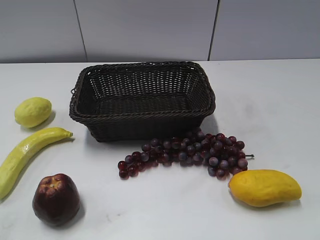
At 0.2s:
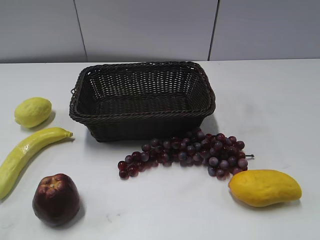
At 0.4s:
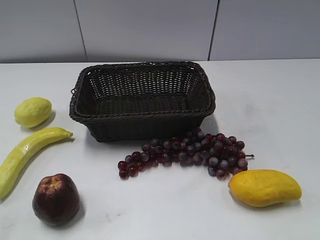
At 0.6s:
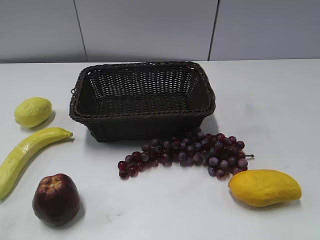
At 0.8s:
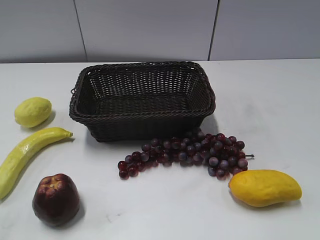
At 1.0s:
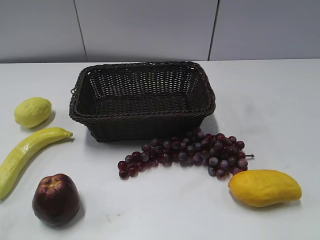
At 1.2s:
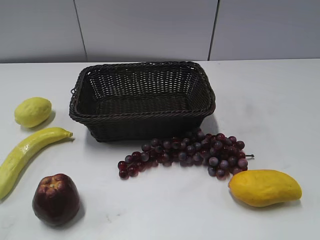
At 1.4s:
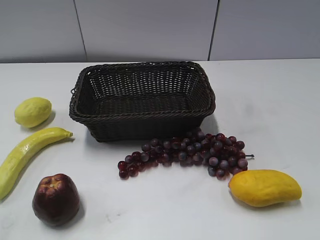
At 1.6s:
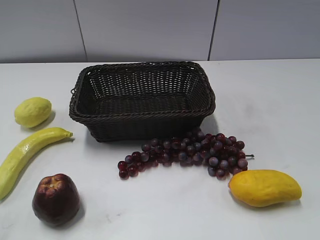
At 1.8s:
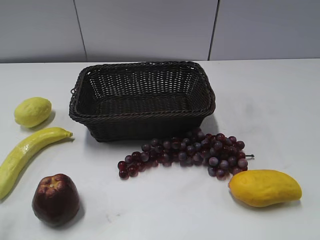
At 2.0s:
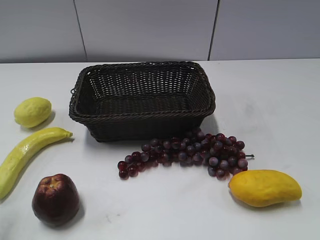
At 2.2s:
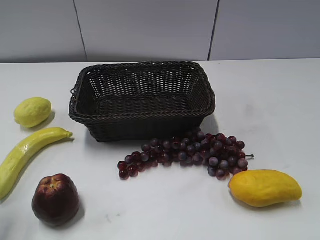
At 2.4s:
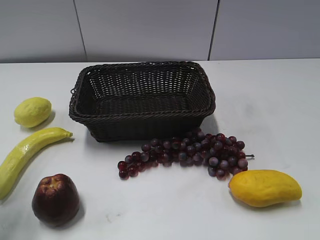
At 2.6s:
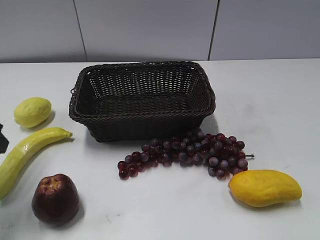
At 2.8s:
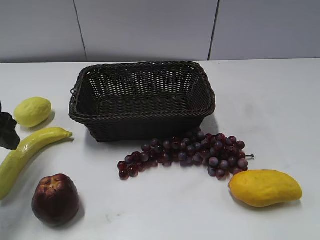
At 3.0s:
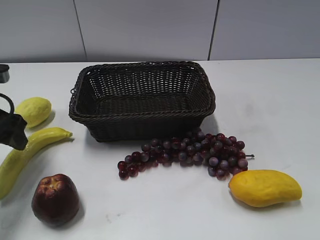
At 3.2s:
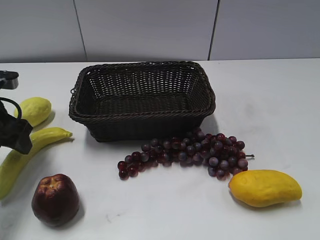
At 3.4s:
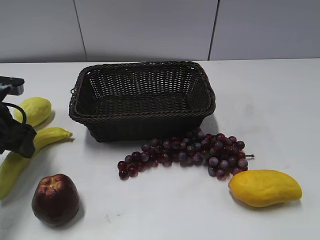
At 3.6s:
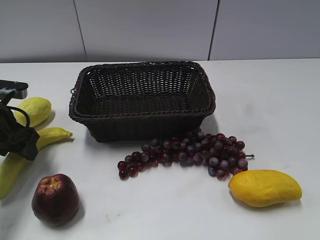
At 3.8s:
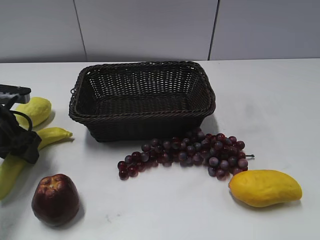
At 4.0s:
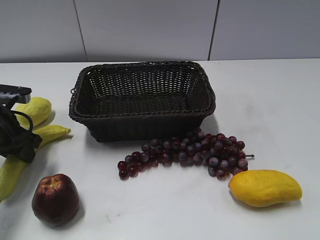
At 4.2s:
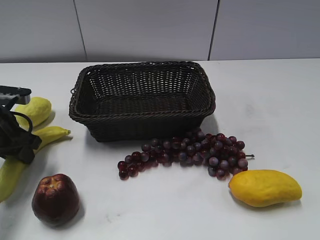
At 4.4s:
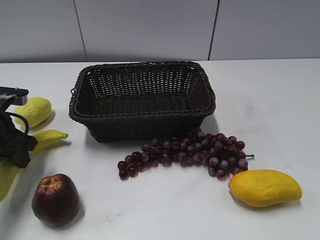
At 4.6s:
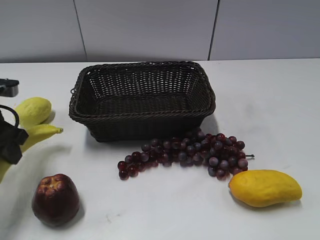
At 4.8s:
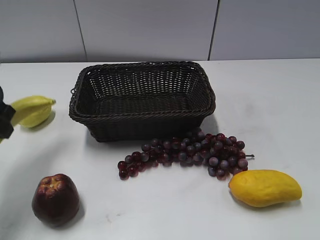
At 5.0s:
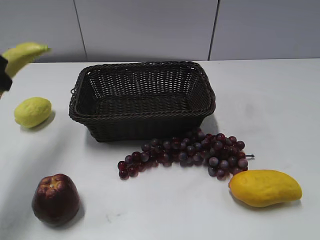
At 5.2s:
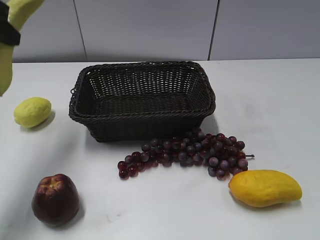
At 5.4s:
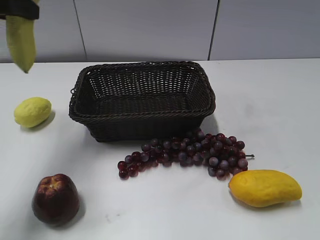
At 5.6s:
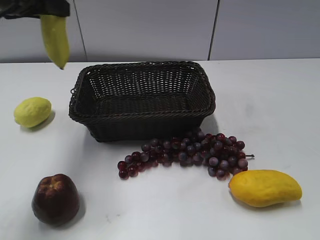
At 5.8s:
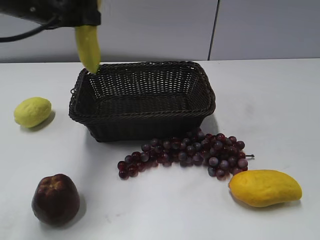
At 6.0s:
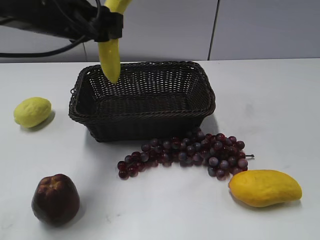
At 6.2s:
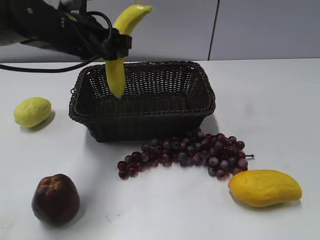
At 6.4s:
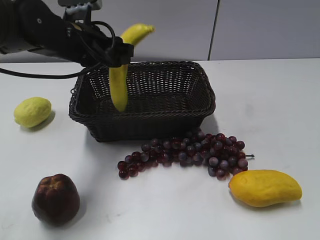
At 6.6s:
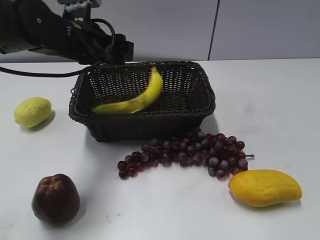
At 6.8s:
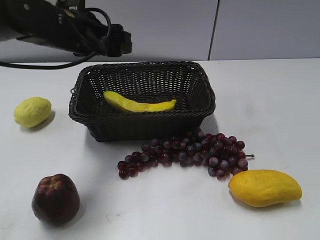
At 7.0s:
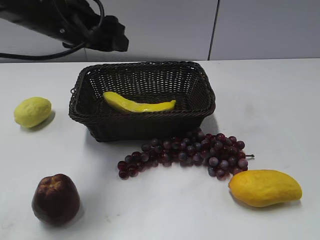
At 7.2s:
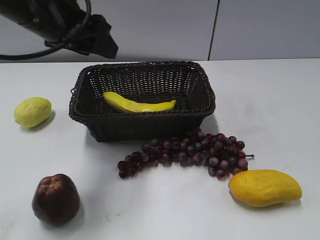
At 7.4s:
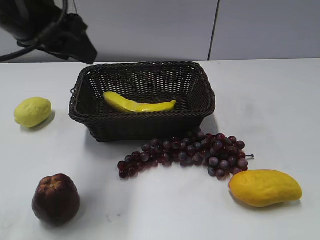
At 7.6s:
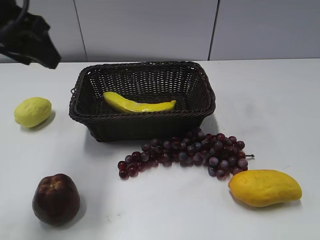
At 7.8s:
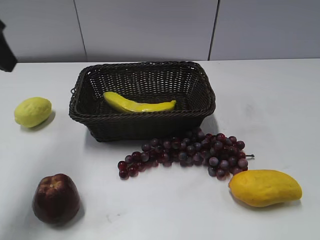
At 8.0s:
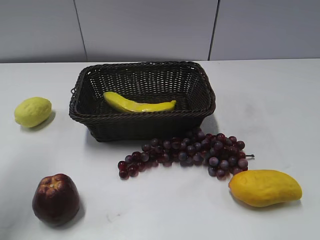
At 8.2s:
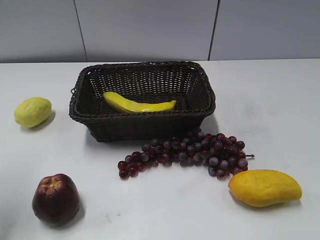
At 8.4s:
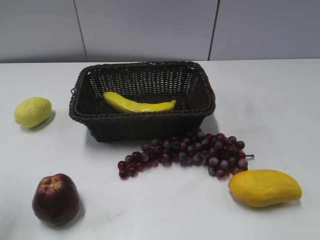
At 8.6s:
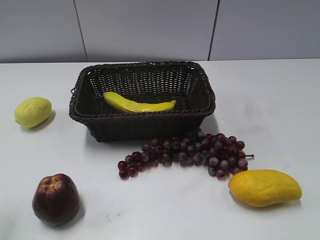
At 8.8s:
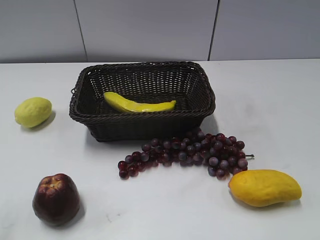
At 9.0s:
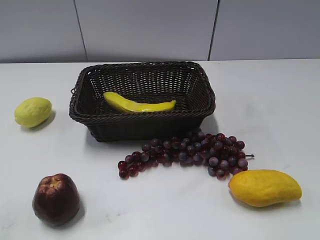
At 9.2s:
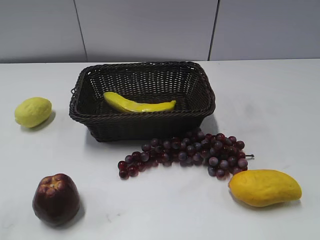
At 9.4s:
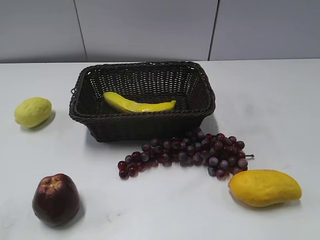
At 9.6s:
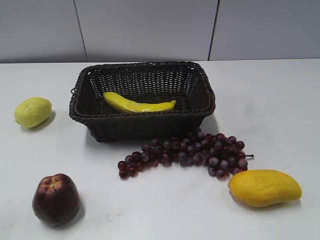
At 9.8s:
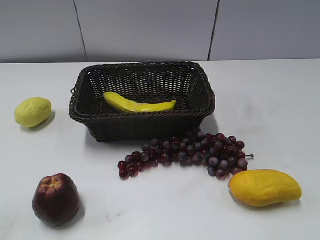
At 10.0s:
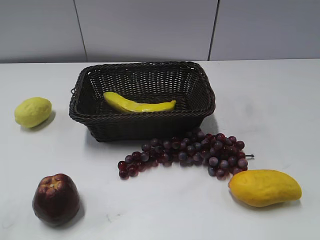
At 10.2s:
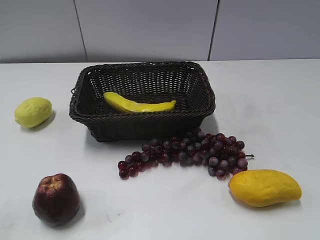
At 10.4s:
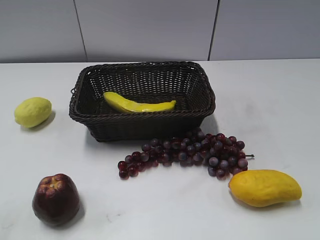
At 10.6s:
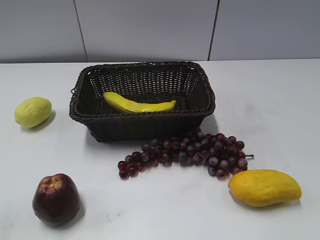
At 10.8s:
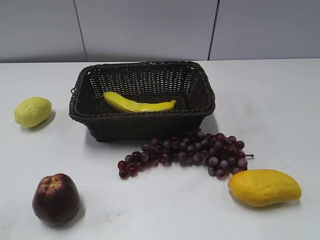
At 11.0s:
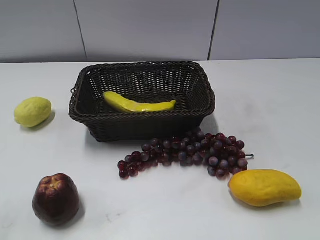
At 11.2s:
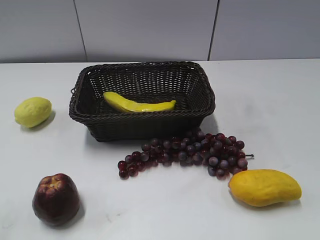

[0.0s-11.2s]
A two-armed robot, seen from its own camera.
Step, 2.6s to 3.8s: Grasp the banana with left gripper.
Step, 4.2s to 6.6s: Place the banana in the basket with left gripper.
1.6s to 3.2s: The left gripper moves forward and downward, some 30 cm.
3.2s to 4.8s: The left gripper shifts about 5 cm upward, and closes up.
4.8s to 6.4s: The left gripper is displaced to the right and forward by some 20 cm, and opens up.
6.4s to 8.0s: The left gripper travels to the left, backward and upward by approximately 25 cm.
8.0s to 9.6s: The left gripper travels backward by roughly 20 cm.
